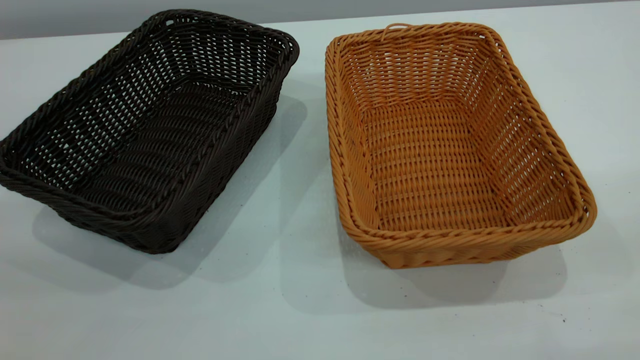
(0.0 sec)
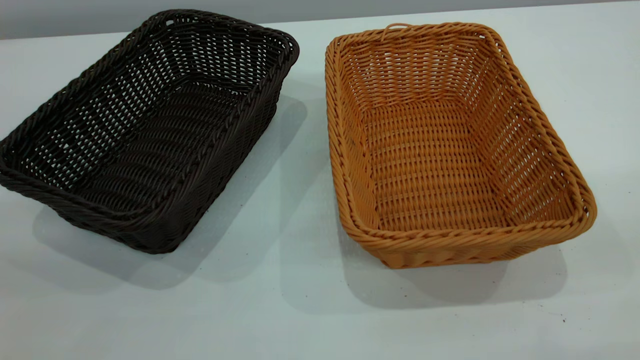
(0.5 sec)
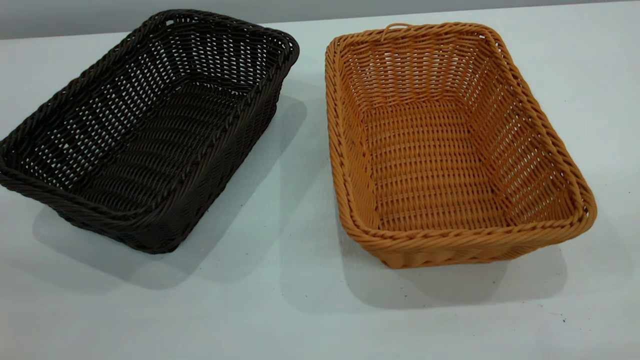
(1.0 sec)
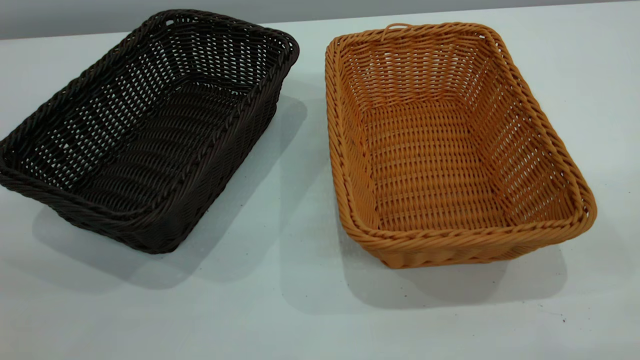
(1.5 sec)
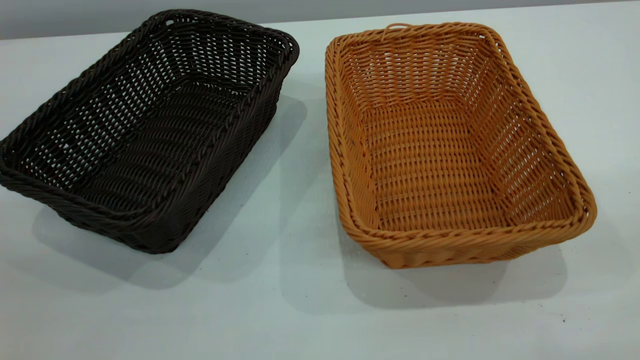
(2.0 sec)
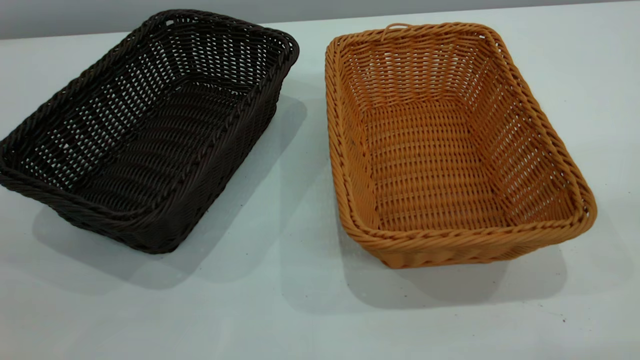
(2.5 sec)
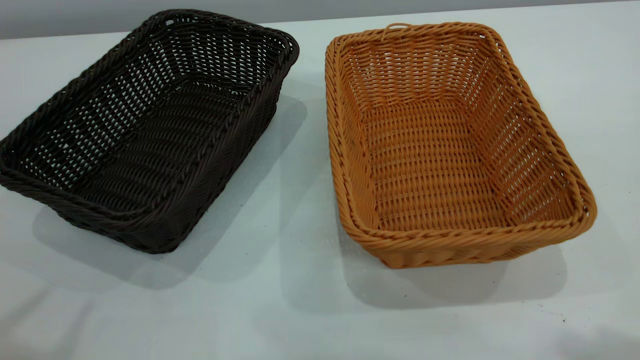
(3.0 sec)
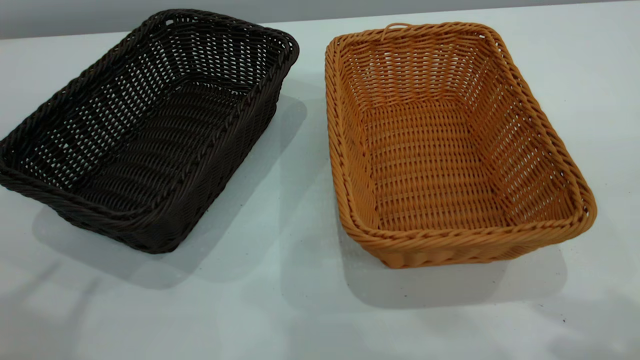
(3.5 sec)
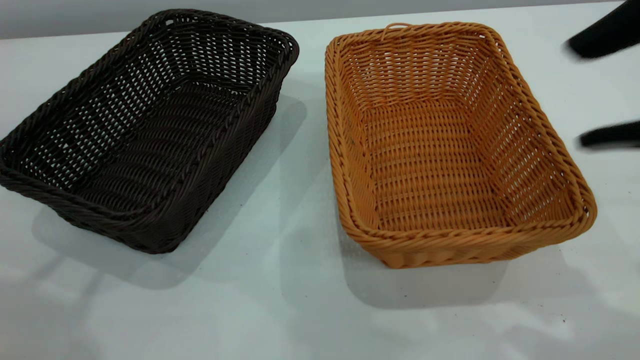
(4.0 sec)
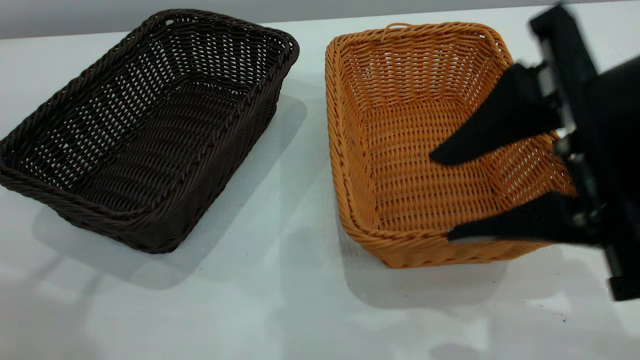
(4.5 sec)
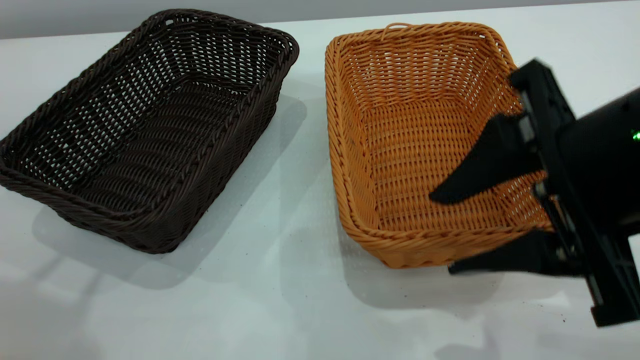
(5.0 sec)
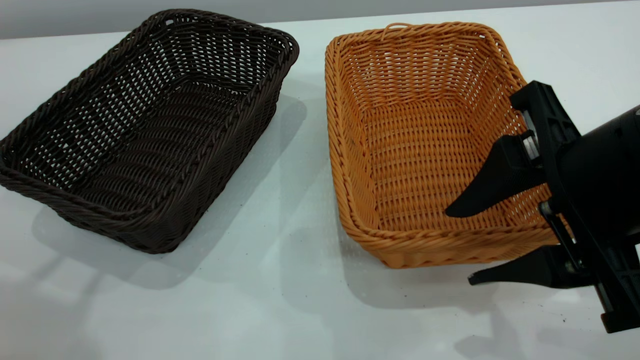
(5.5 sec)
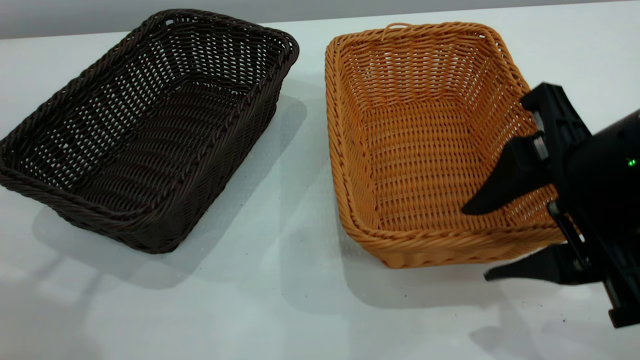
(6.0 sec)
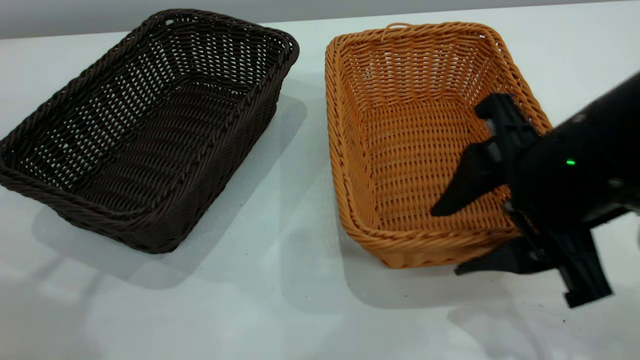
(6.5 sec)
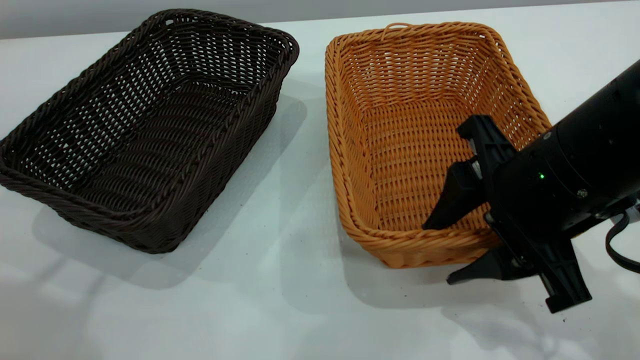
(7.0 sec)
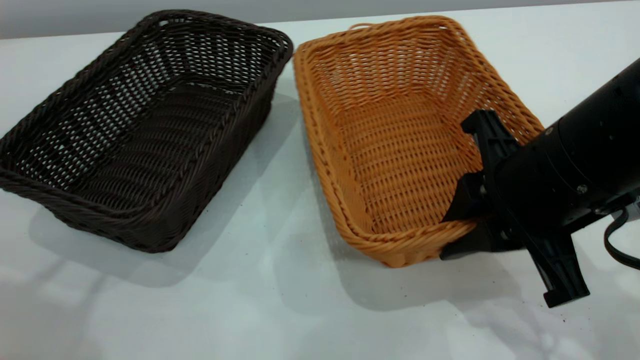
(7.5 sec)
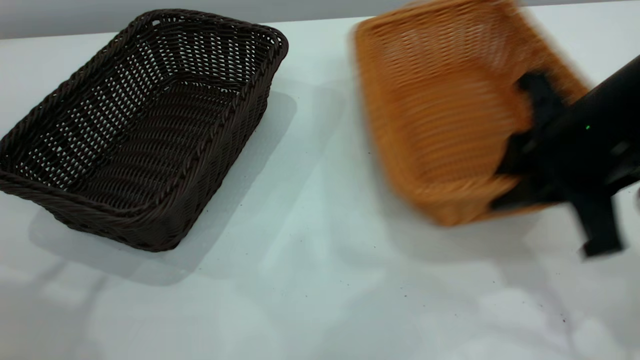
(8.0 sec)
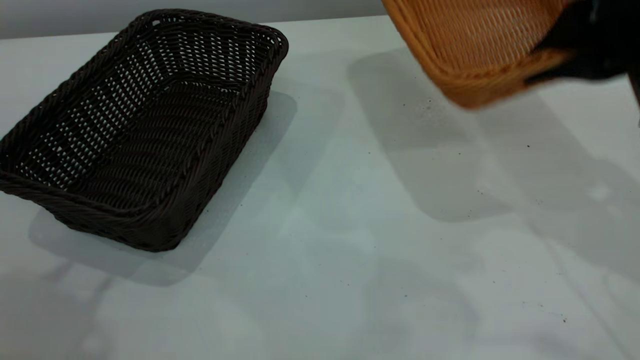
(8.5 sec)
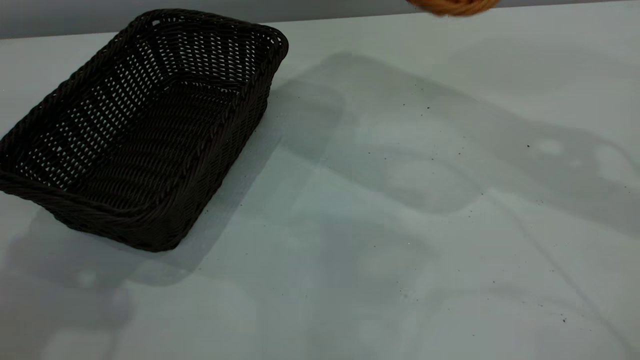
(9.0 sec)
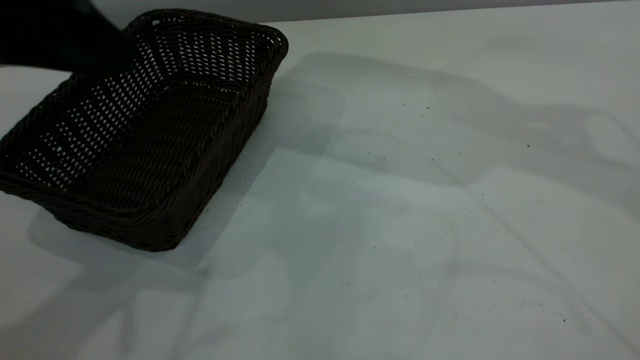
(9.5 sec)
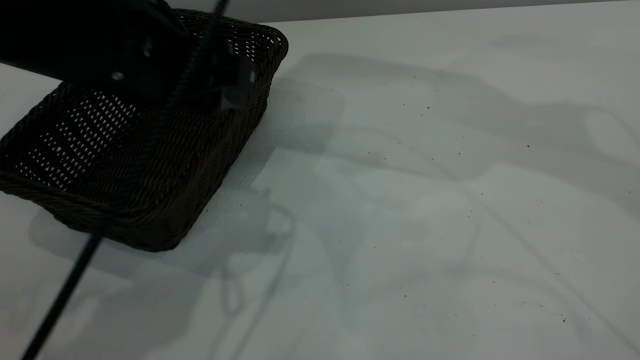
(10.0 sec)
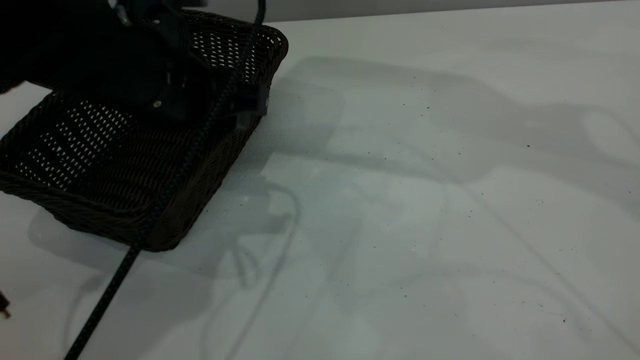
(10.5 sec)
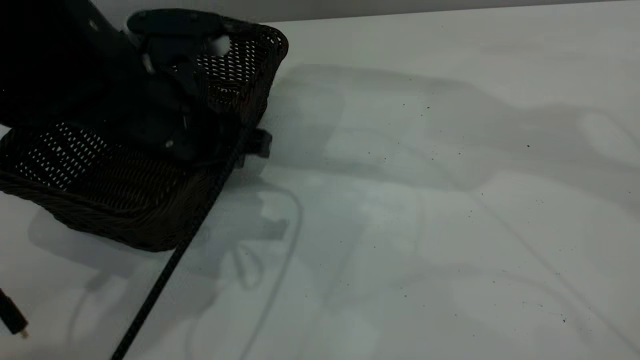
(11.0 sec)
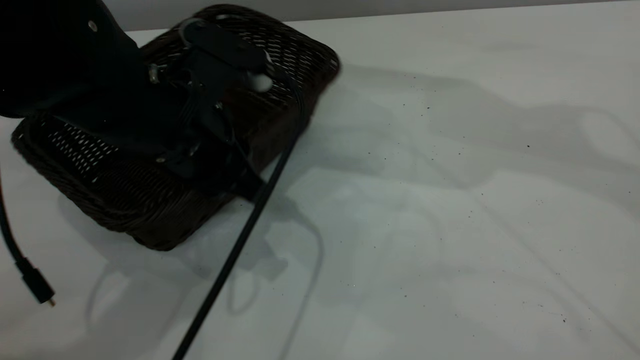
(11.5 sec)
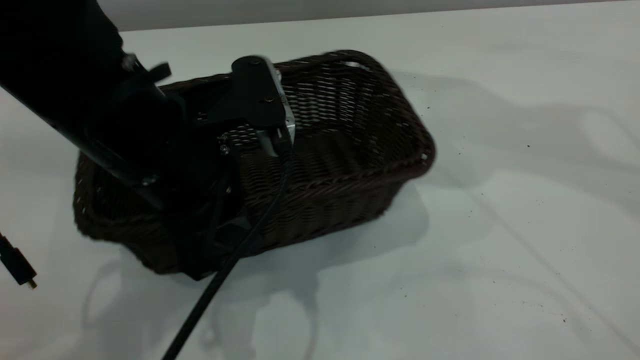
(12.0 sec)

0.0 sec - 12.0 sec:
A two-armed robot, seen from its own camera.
Task of the whole recording: the left gripper grasp the black basket and place it in the center of the table, the right gripper grasp the brown basket and place it inside the black one.
Step, 0.0 sec - 8.0 sec: Pick up the light basket with the right gripper.
0.0 sec - 2.0 sec: Neither gripper changes place.
2.0 sec - 4.0 sec: The left gripper goes approximately 15 cm forward, and opens its fingers; the right gripper goes some 20 cm forward, to the left and downward, and opens up.
4.0 sec - 6.0 sec: The right gripper goes about 10 cm downward.
6.0 sec - 8.0 sec: The right gripper shifts about 5 cm forward, and closes its fingers.
8.0 sec - 10.0 sec: The left gripper goes about 25 cm downward, to the right and forward, while the right gripper shifts approximately 25 cm upward and forward.
10.0 sec - 12.0 sec: The left gripper moves about 5 cm, and closes its fingers.

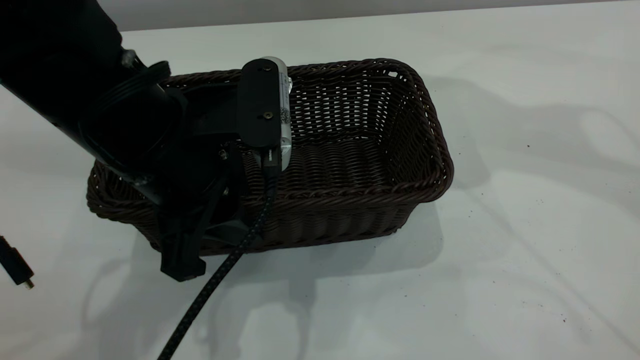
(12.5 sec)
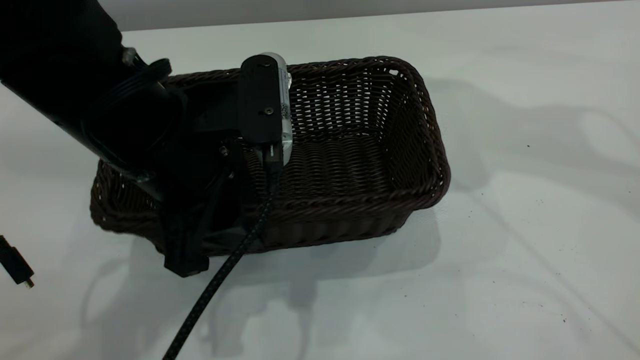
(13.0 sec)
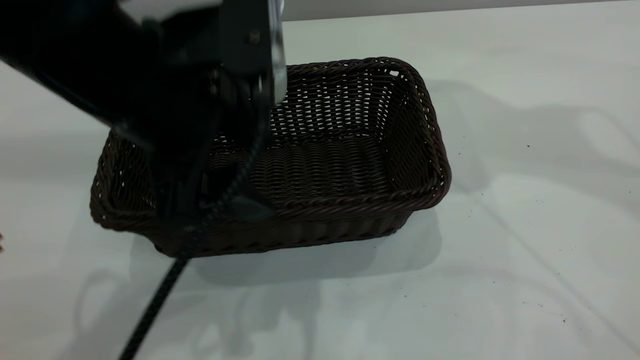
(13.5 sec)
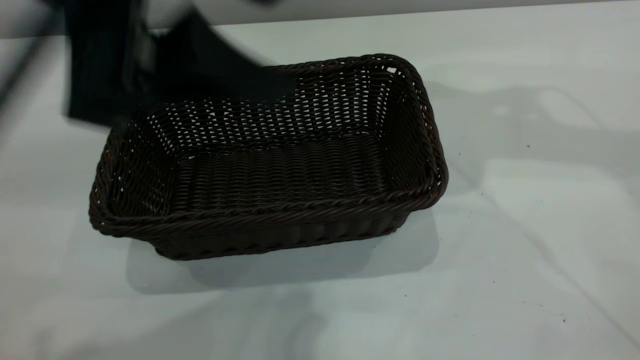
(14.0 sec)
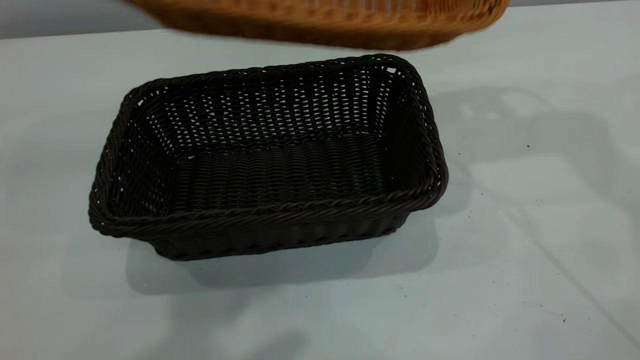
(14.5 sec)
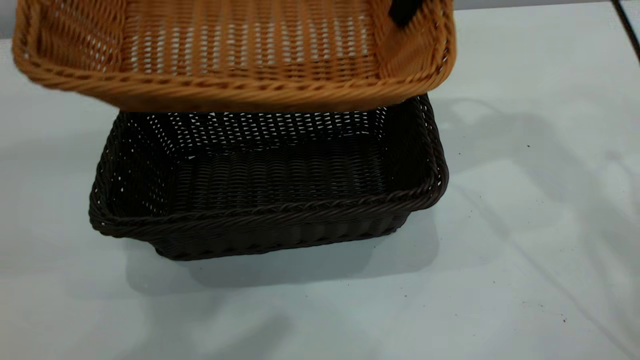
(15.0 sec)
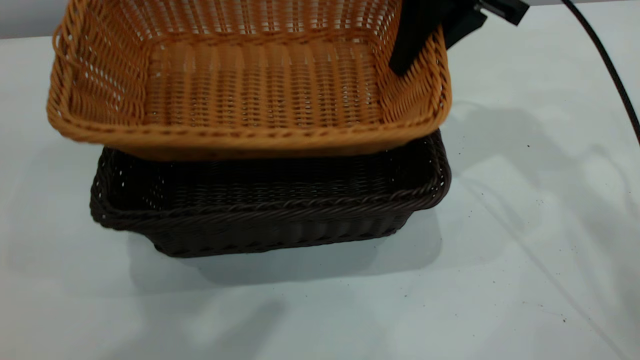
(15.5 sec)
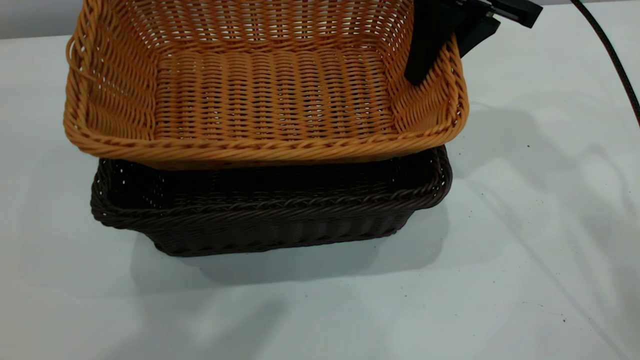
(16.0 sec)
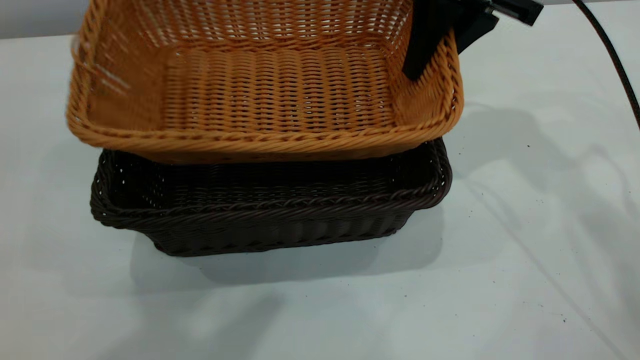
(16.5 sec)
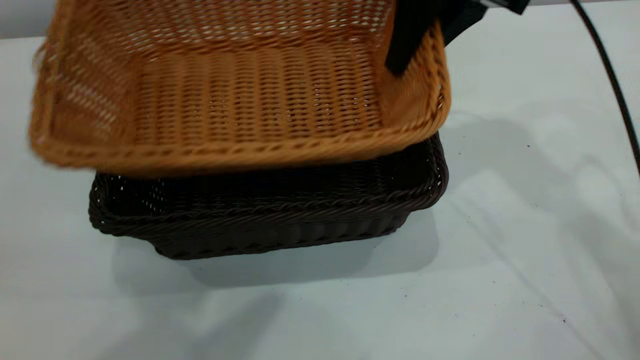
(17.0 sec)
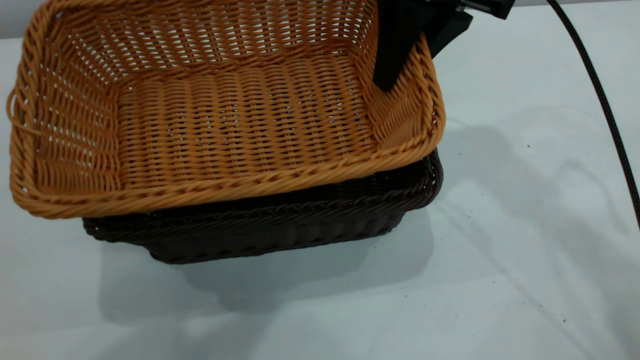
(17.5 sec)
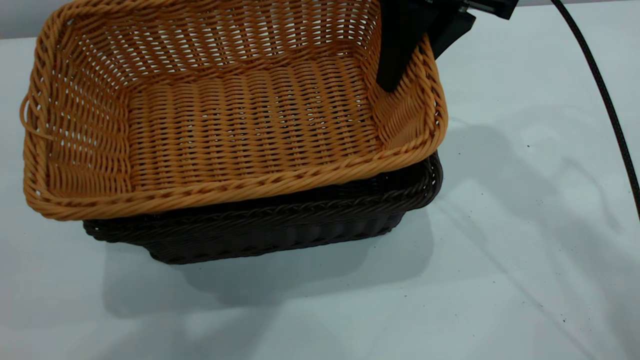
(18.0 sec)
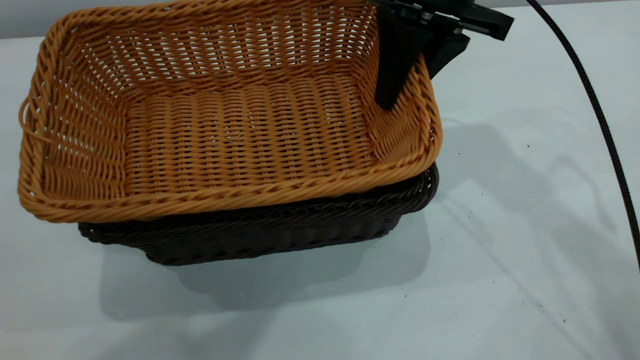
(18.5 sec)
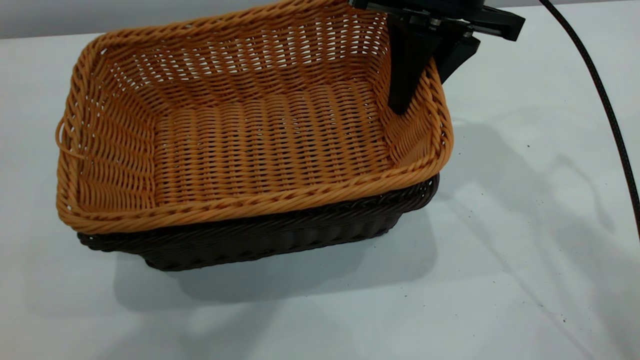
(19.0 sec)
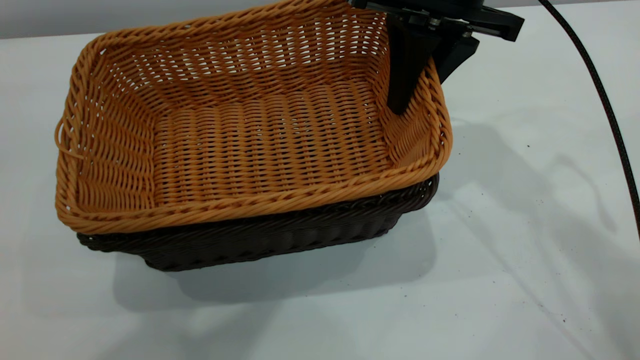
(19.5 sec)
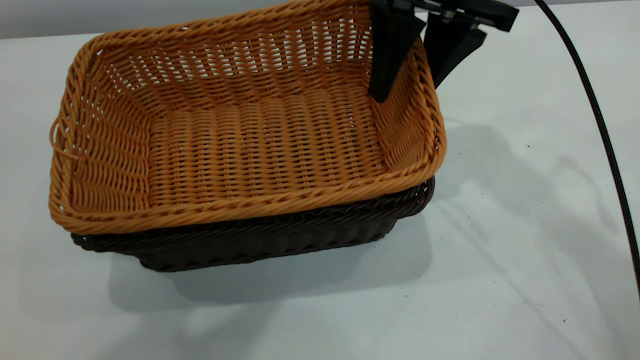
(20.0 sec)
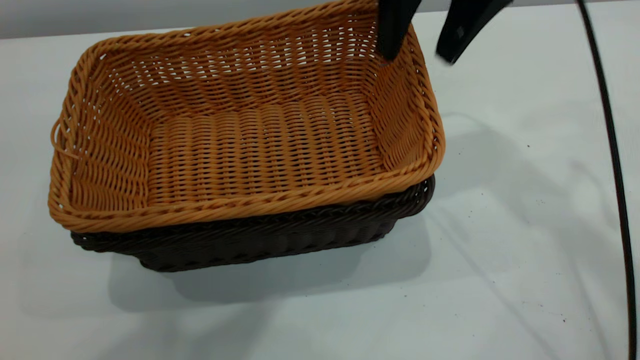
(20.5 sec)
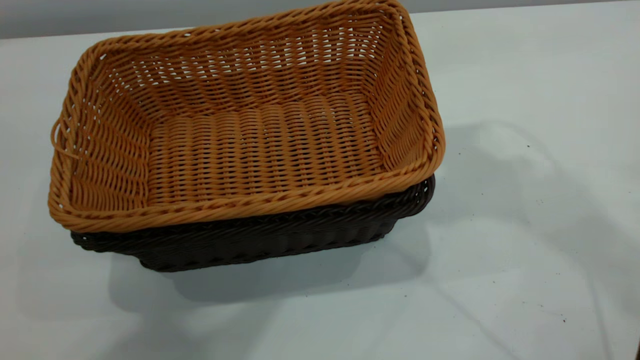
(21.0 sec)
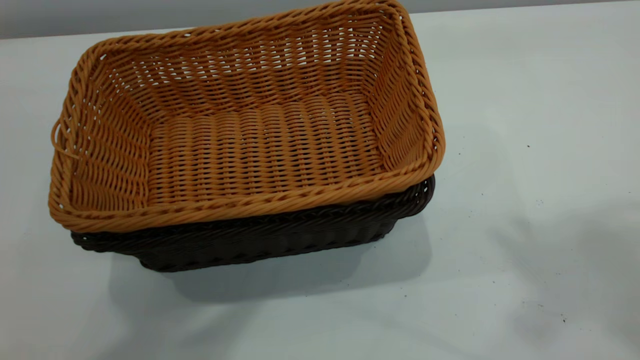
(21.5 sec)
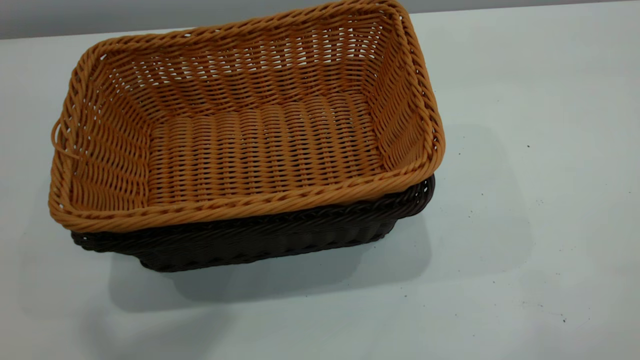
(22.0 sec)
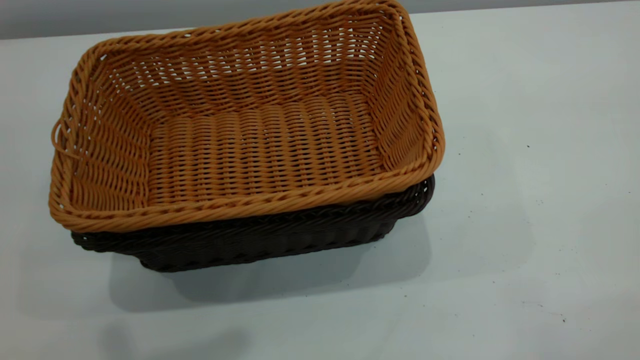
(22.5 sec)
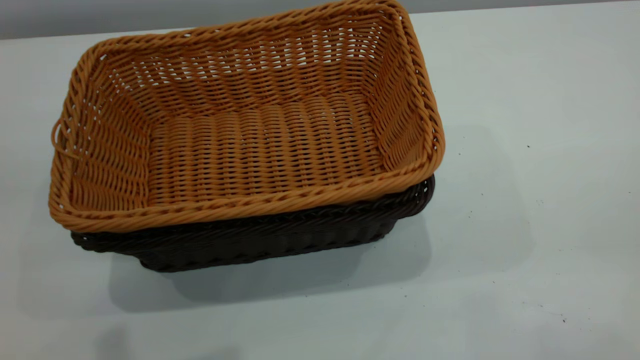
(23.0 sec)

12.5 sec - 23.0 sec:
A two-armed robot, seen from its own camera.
Task of the whole recording: the left gripper grasp the black basket and place it in the center of the table, the right gripper grasp the brown basket and place it inside the black one.
Step, 14.5 sec - 20.0 sec: Place the light basket on the dark basket.
12.5 sec - 14.5 sec: The left gripper travels upward by about 25 cm, and opens. The right gripper goes about 10 cm downward and forward.
14.5 sec - 16.5 sec: The right gripper travels downward by roughly 5 cm.
19.0 sec - 21.0 sec: The right gripper is displaced upward by about 20 cm, and opens.
21.0 sec - 23.0 sec: The left gripper ends up roughly 5 cm from where it was, and closes its fingers.
